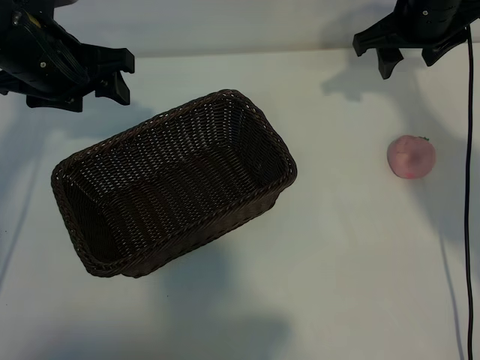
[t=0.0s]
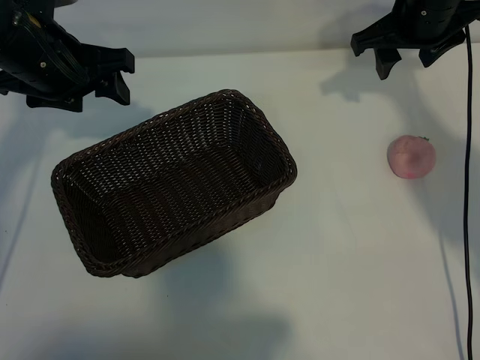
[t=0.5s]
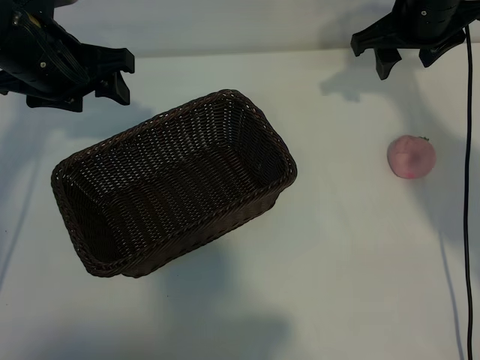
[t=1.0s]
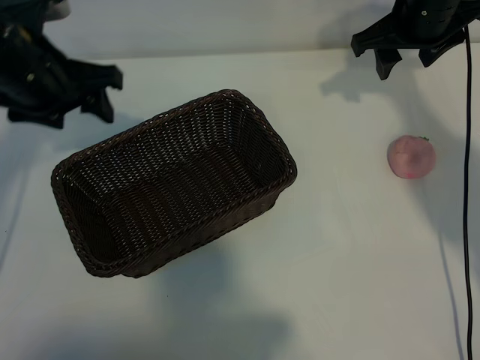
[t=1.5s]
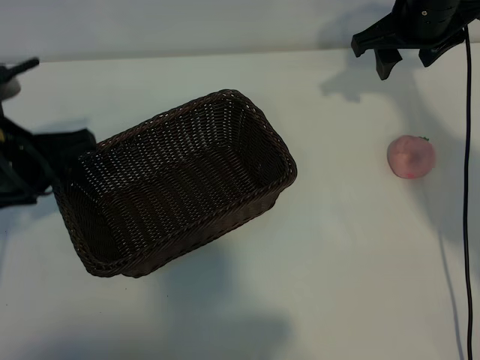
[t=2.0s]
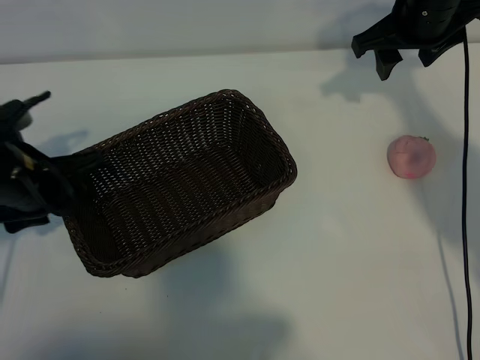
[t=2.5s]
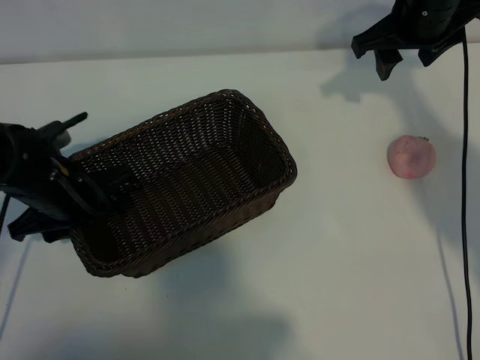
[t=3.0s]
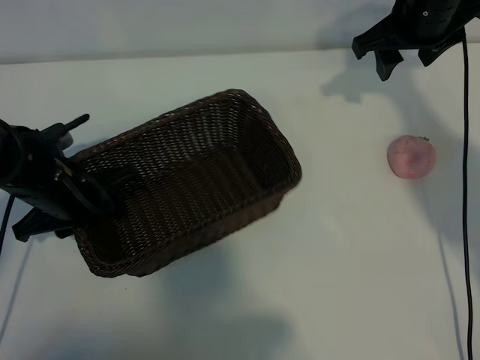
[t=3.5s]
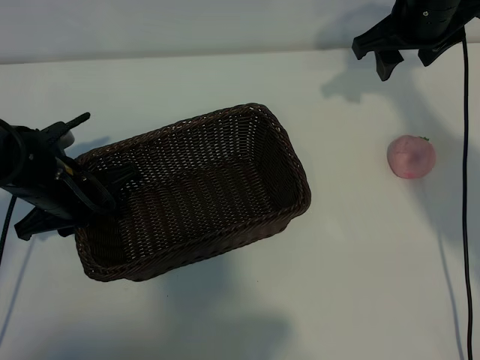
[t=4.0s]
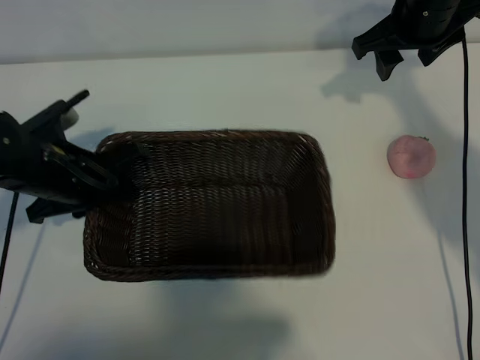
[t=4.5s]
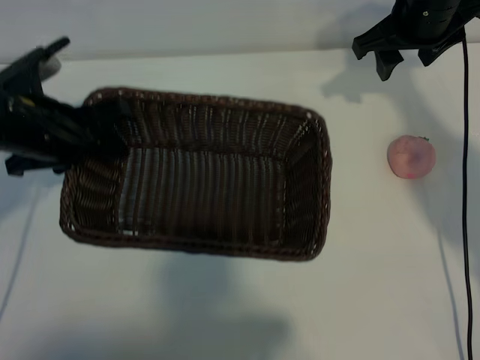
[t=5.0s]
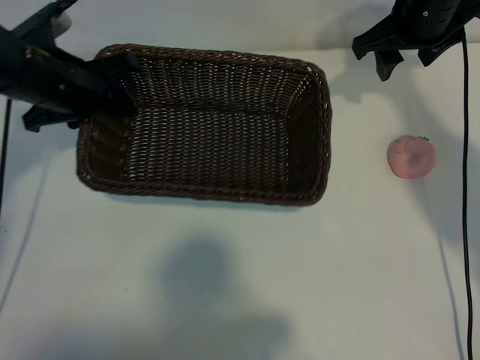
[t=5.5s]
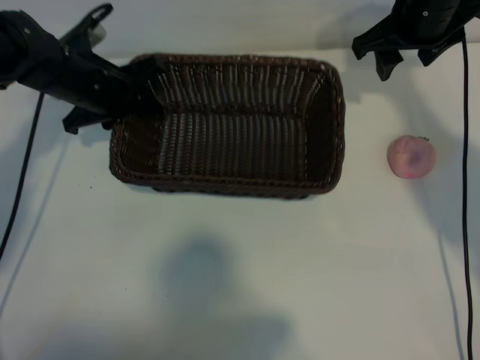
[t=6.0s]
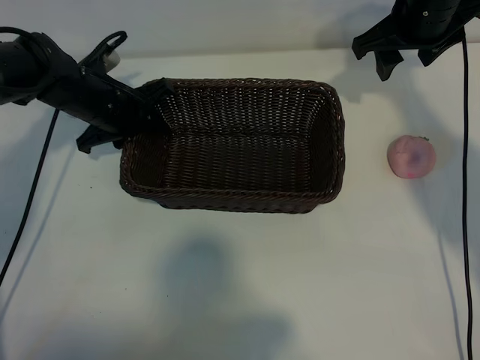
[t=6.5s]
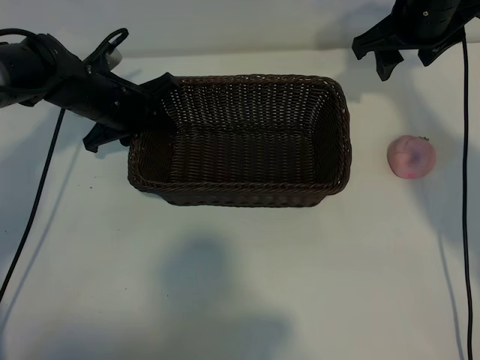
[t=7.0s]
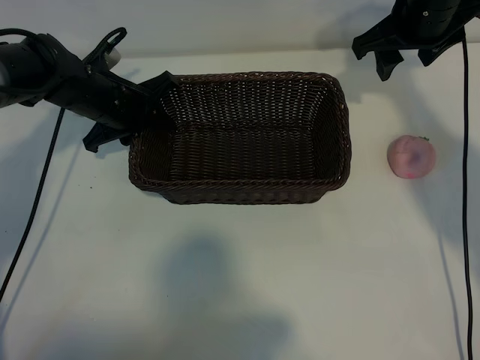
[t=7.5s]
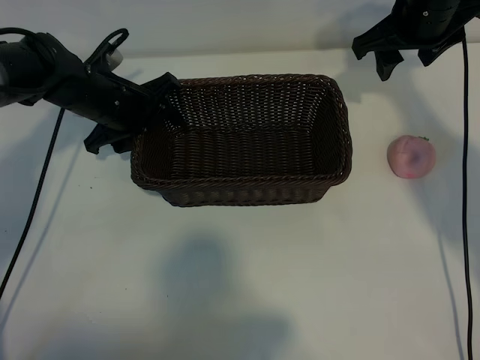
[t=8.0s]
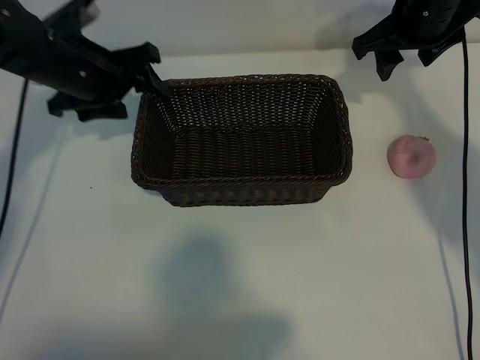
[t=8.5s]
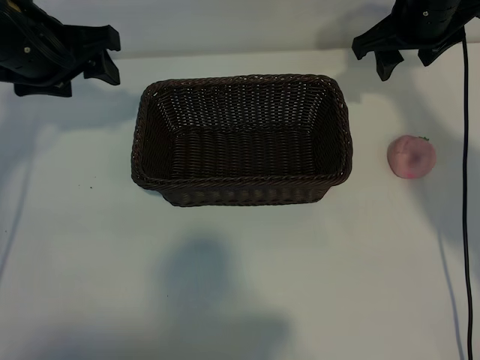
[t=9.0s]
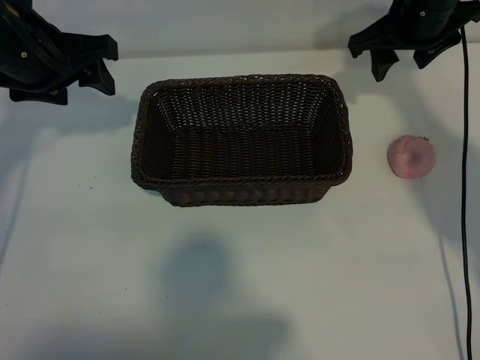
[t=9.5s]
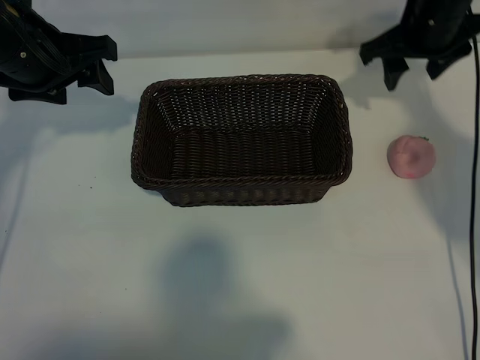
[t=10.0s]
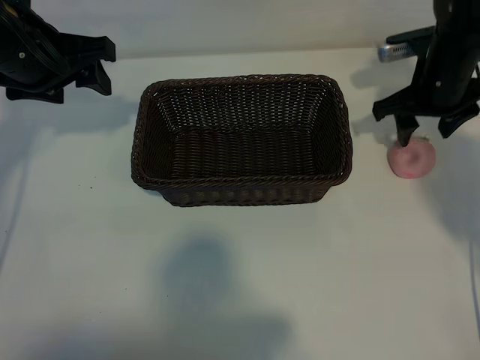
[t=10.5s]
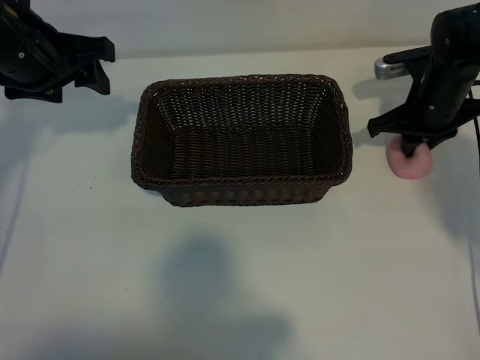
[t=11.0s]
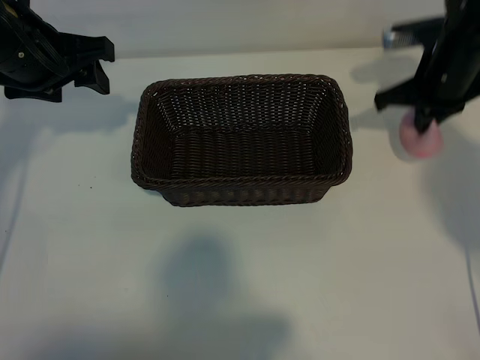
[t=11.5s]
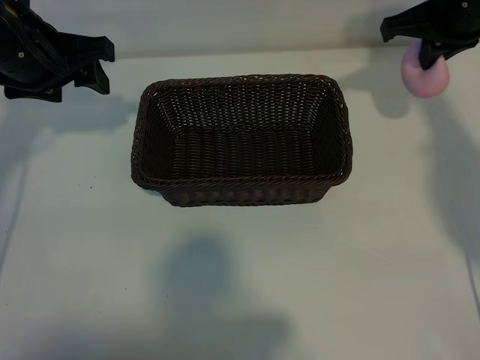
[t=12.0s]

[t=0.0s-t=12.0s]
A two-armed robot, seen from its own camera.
Task of the whole recording: pick up the peach and put it into the basket.
Step, t=1.5s to t=3.5s: Grasp the basket with left gripper.
Step, t=4.0s to t=8.0s: Place the basket in the center of view with left gripper.
Step, t=8.5s to t=11.0s: Grasp the peach with right gripper.

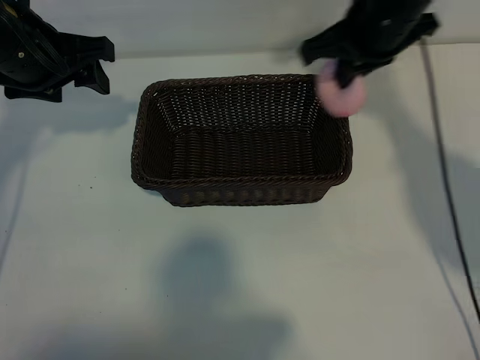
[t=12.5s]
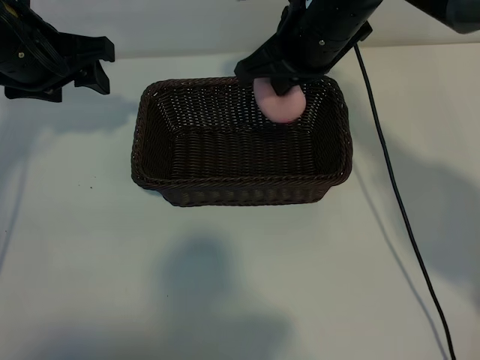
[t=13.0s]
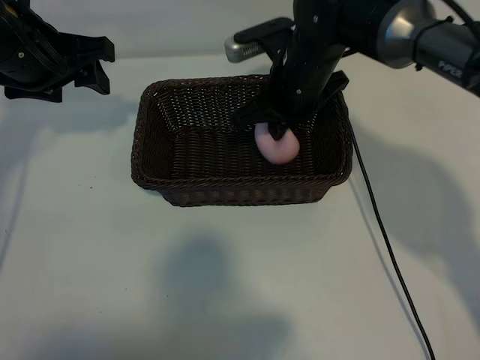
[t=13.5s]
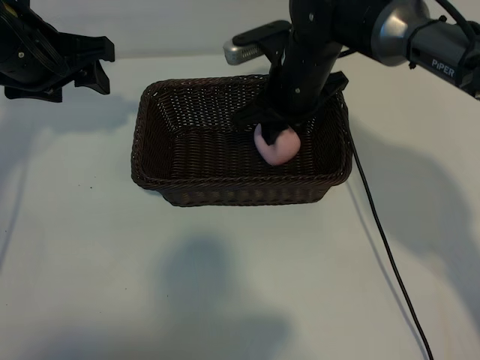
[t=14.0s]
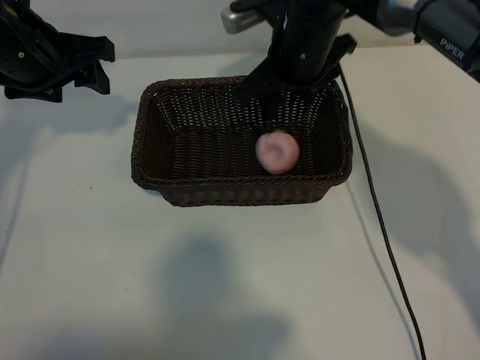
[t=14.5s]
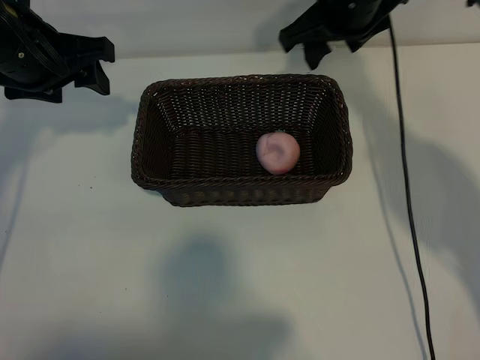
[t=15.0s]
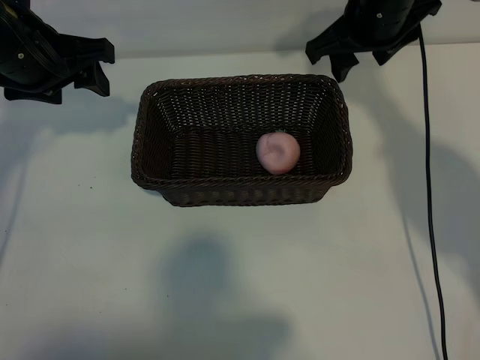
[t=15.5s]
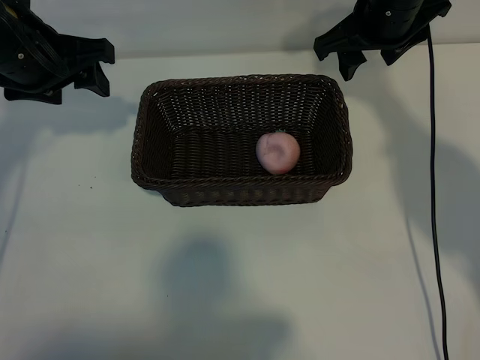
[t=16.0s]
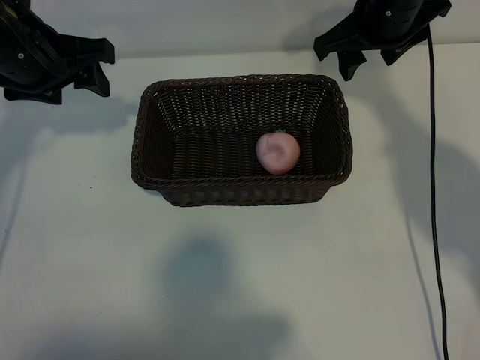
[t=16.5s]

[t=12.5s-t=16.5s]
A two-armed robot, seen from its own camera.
Task of the whole recording: pick up the peach and put it into the basket.
Step, t=12.5s to t=14.0s: Place the peach in the basket with right gripper.

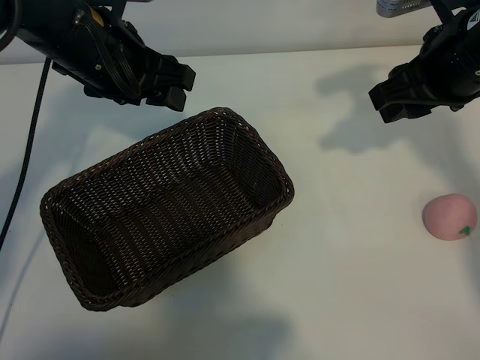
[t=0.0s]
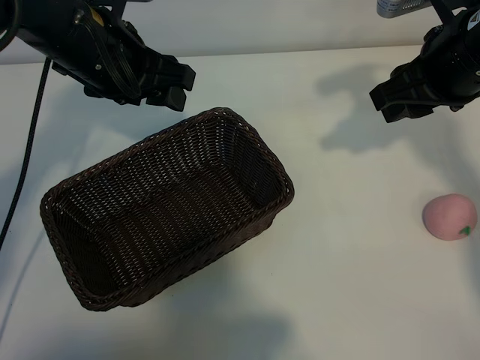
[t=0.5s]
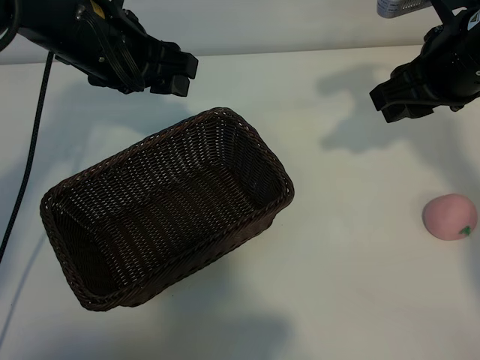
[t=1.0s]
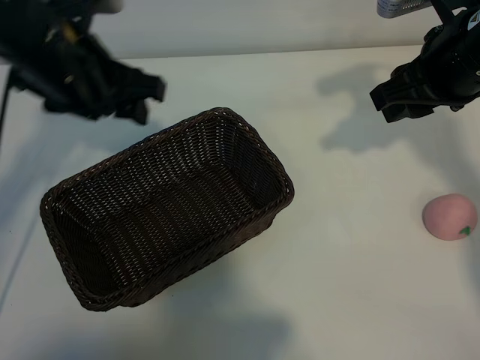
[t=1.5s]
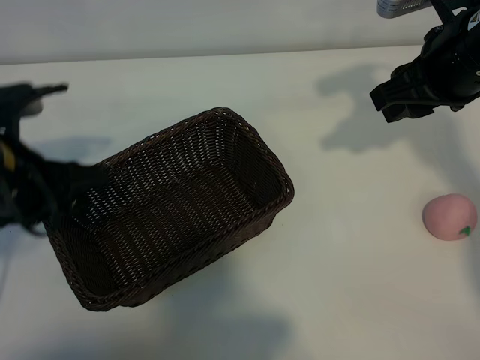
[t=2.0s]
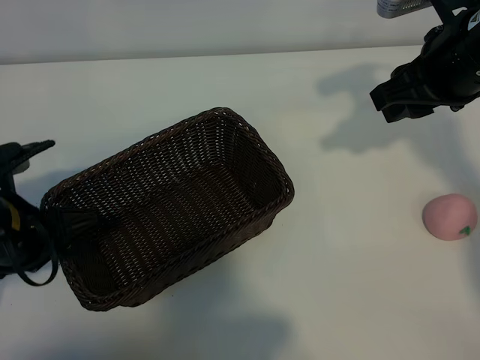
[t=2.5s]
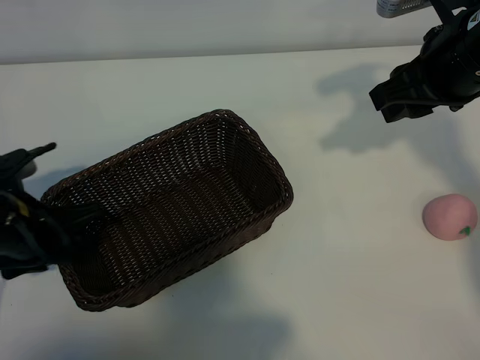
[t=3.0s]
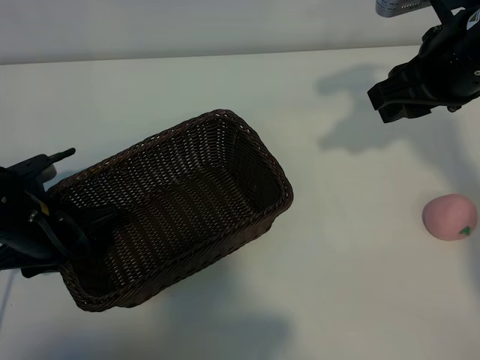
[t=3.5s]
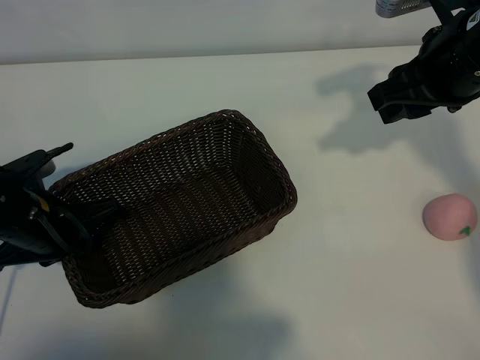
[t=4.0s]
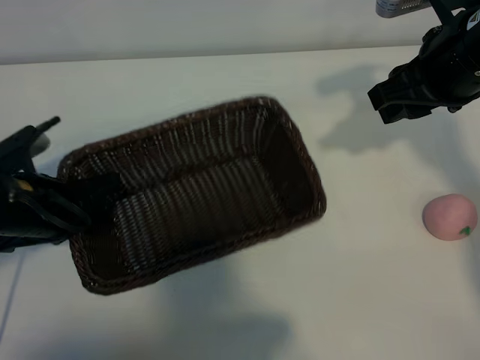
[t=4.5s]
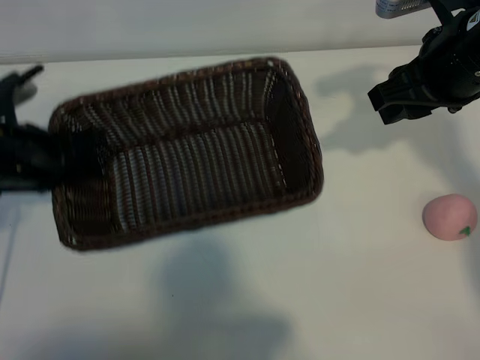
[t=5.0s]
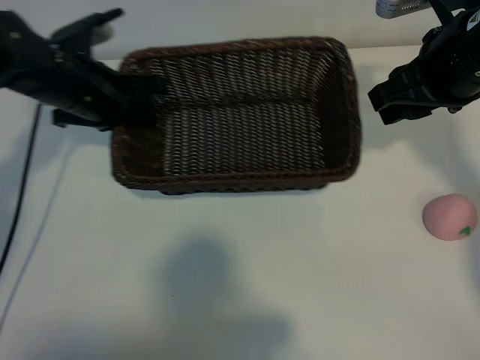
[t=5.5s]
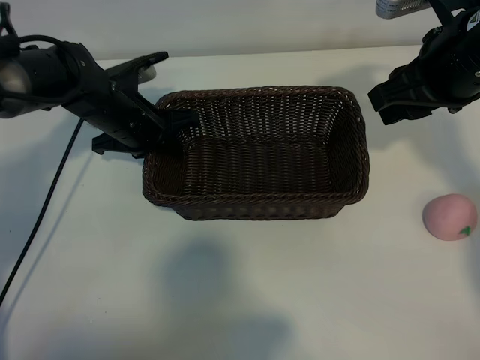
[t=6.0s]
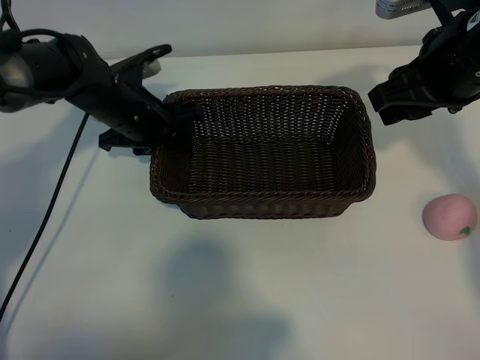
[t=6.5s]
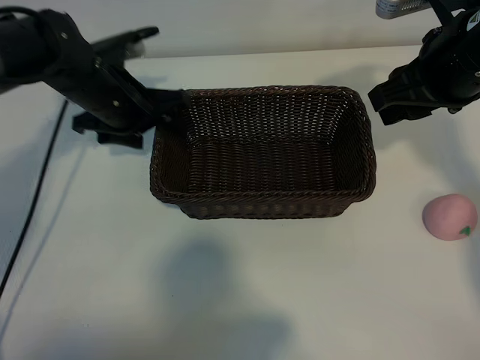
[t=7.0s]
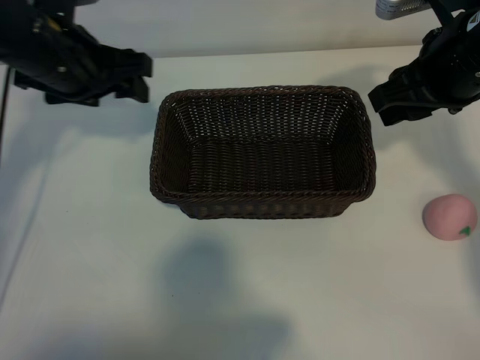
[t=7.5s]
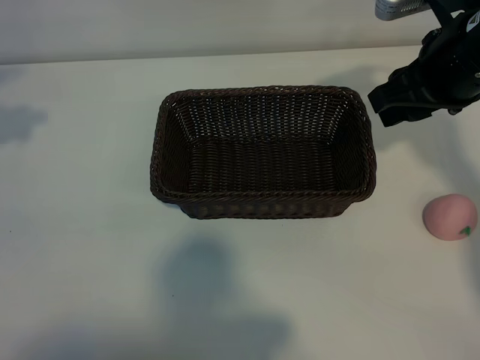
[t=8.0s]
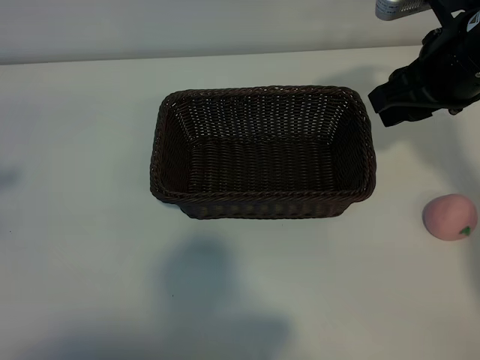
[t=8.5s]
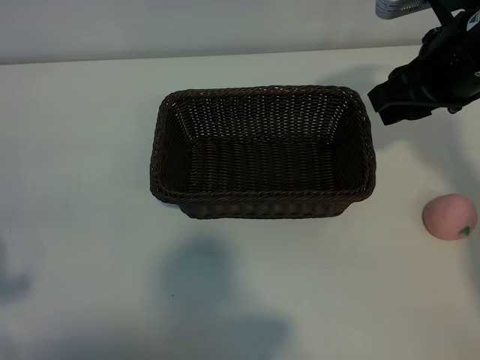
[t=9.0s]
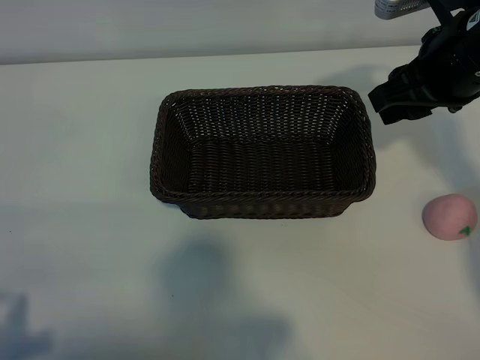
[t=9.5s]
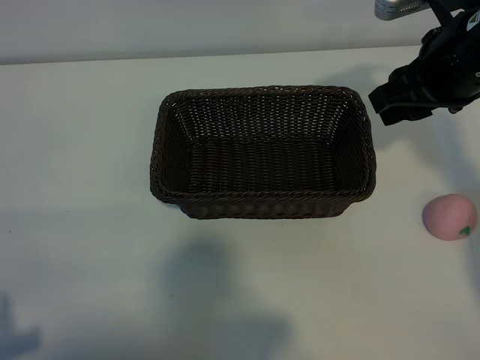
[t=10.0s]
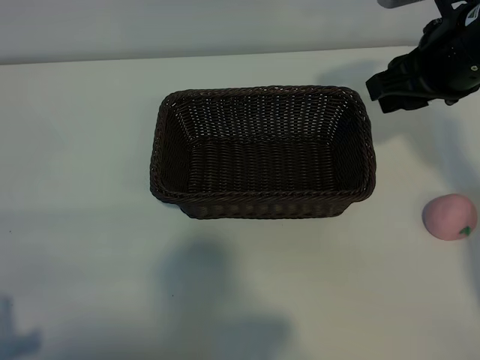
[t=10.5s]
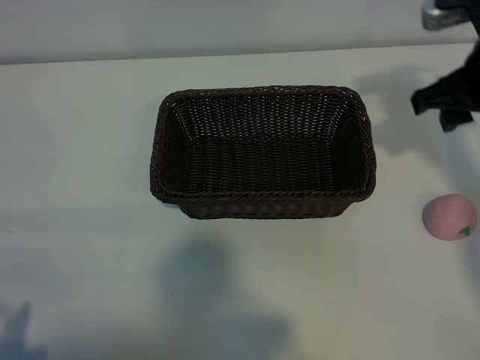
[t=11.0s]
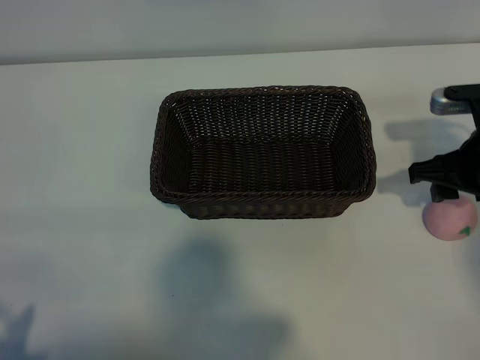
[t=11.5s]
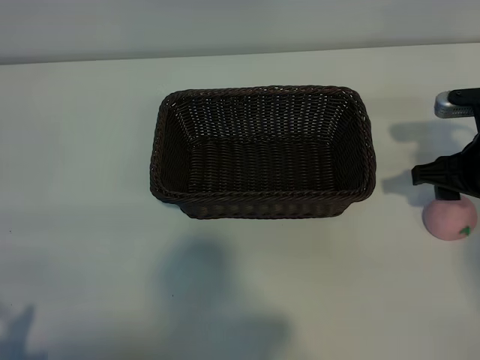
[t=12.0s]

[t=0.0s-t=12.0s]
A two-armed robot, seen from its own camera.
Task of the whole recording: pick up the peach and put it into the basket.
Step, t=1.0s to t=4.0s: Grasp the basket with left gripper.
Step, t=4.5s to t=7.0s: Place the basket in the center of view with left gripper.
